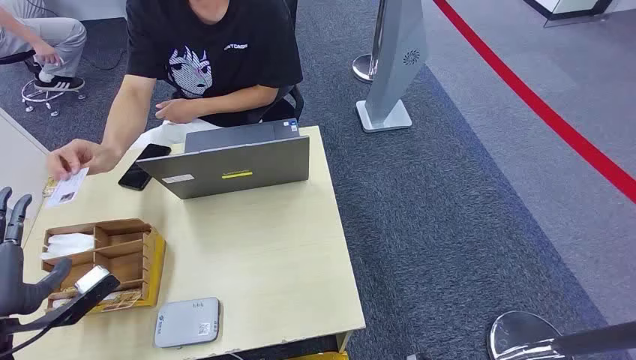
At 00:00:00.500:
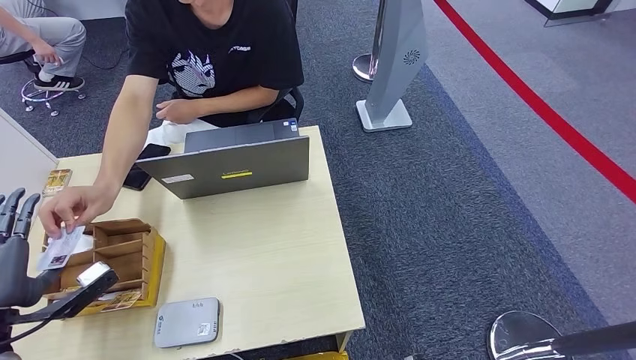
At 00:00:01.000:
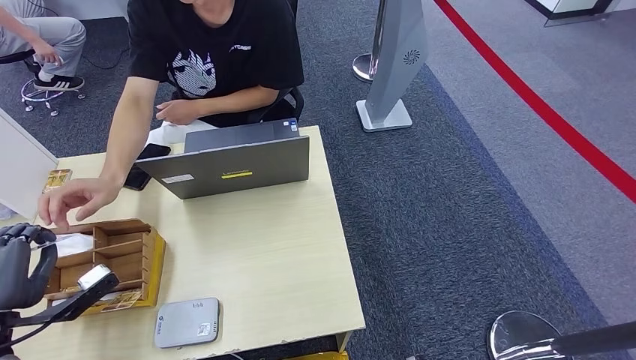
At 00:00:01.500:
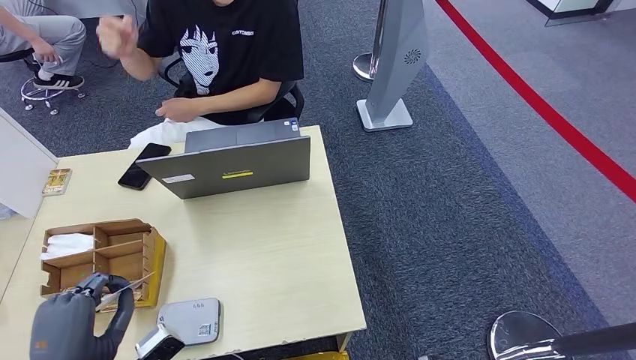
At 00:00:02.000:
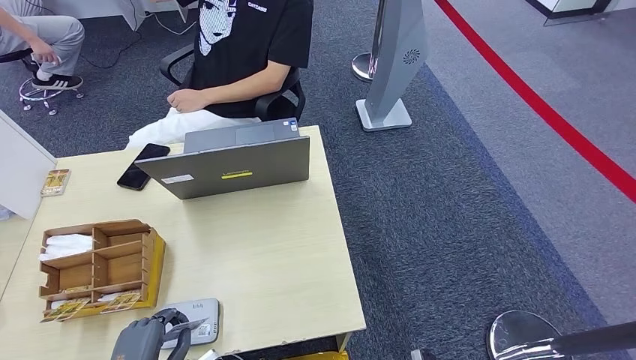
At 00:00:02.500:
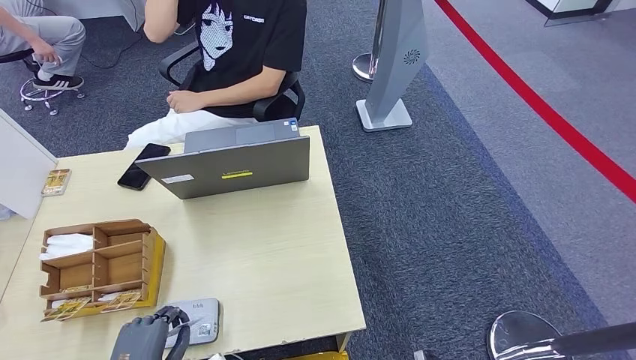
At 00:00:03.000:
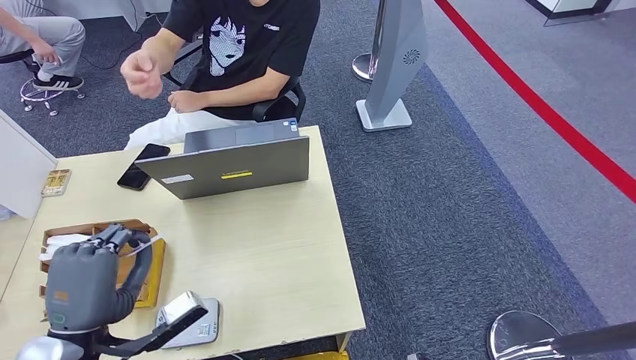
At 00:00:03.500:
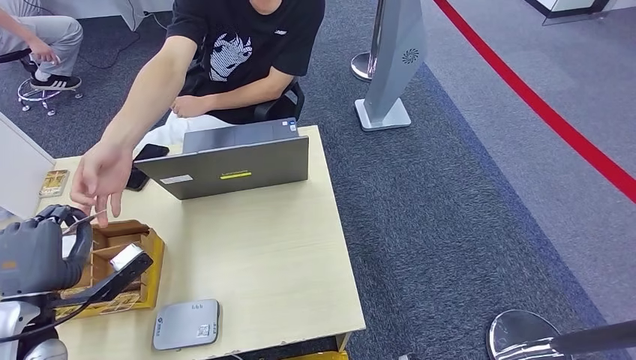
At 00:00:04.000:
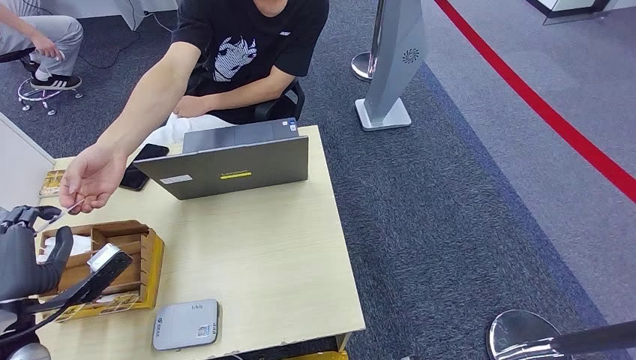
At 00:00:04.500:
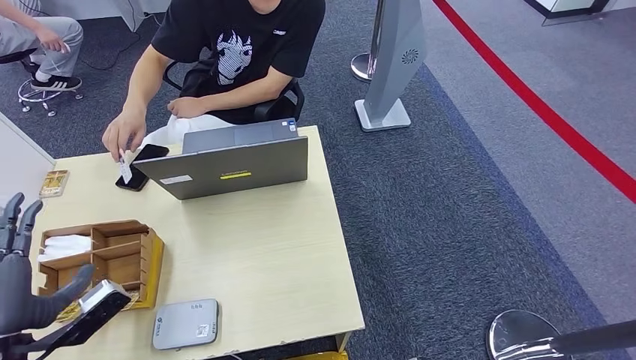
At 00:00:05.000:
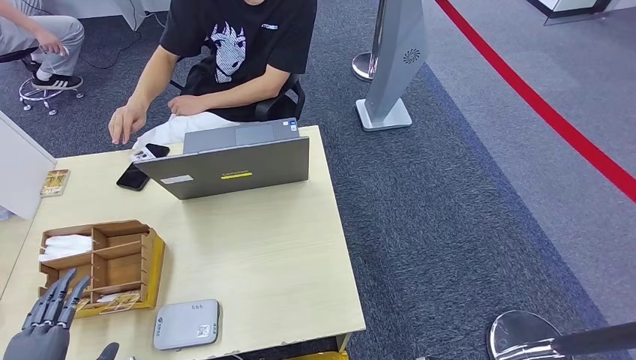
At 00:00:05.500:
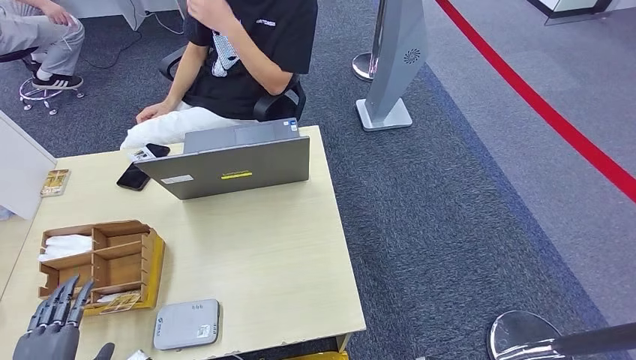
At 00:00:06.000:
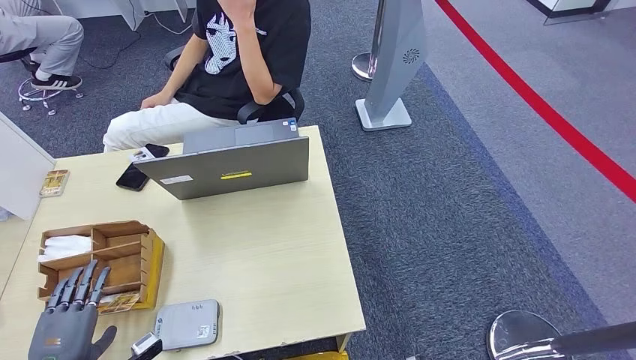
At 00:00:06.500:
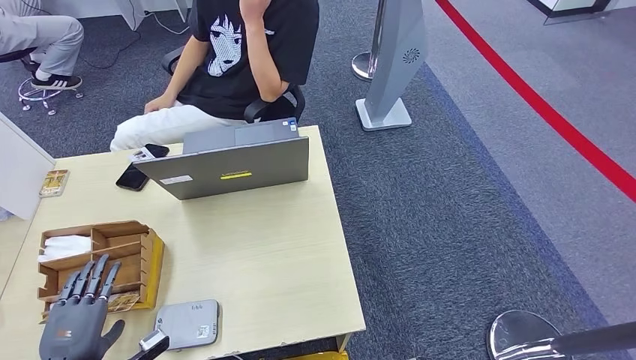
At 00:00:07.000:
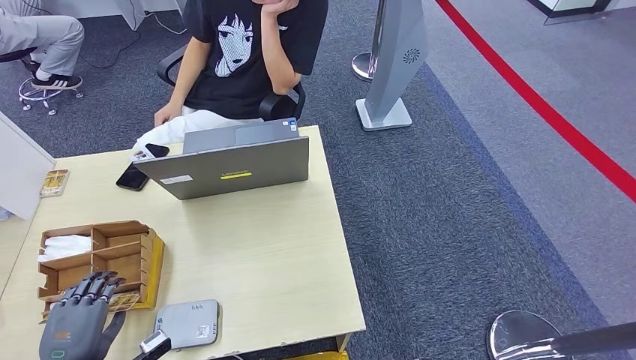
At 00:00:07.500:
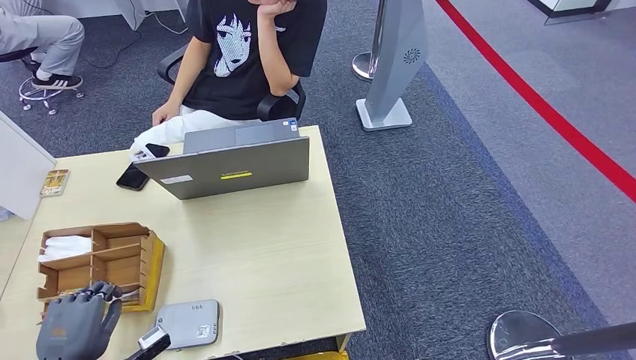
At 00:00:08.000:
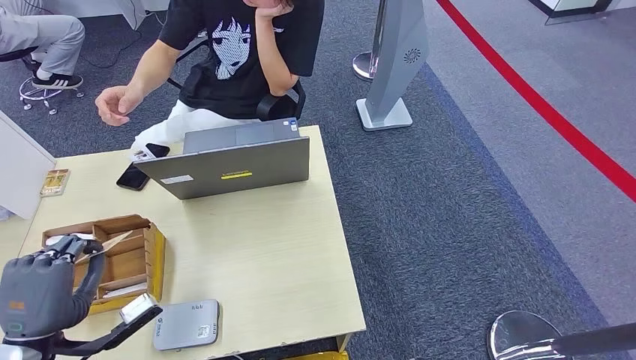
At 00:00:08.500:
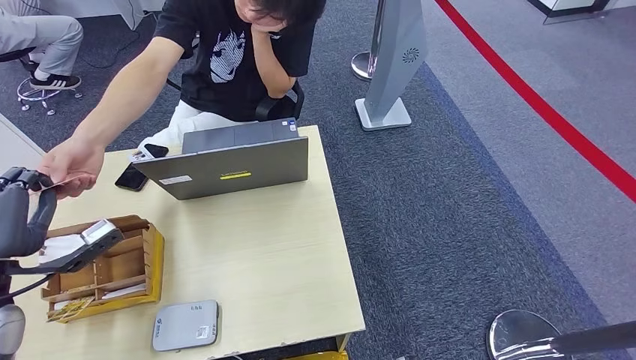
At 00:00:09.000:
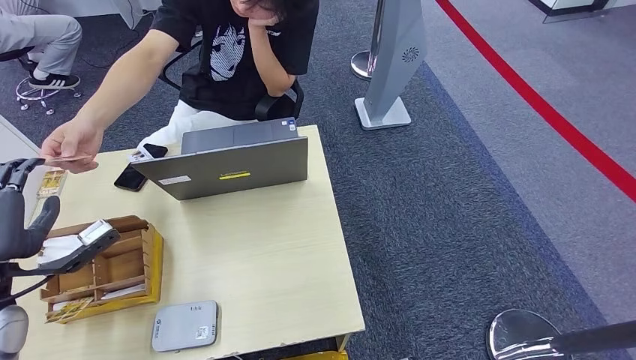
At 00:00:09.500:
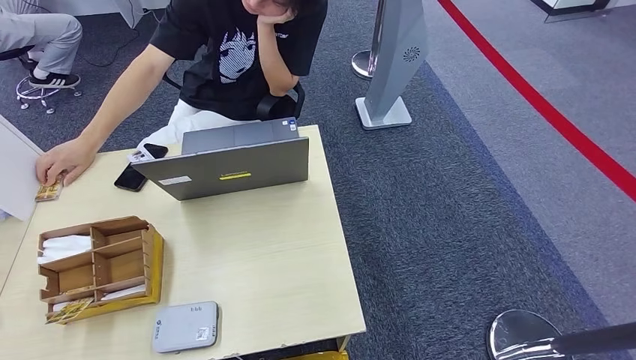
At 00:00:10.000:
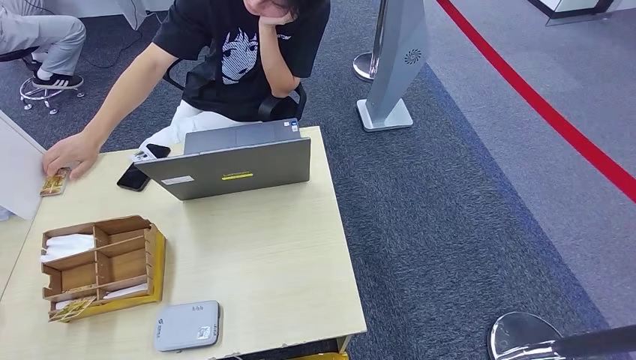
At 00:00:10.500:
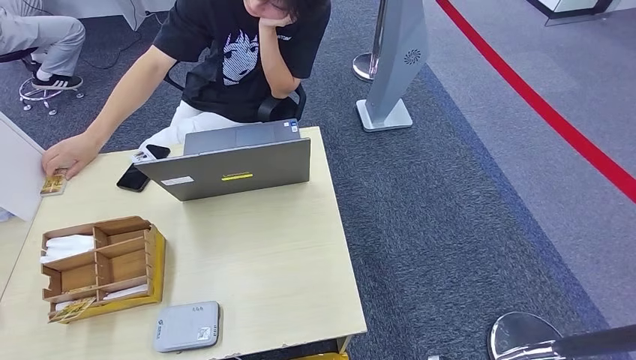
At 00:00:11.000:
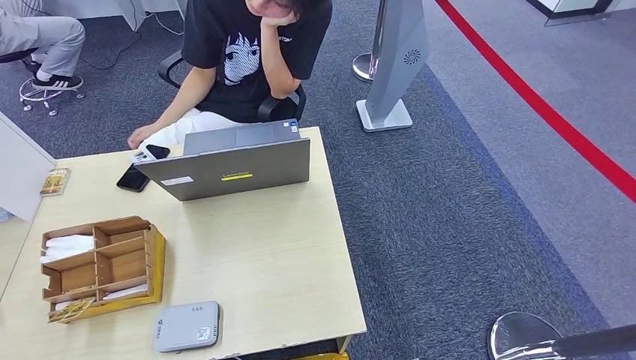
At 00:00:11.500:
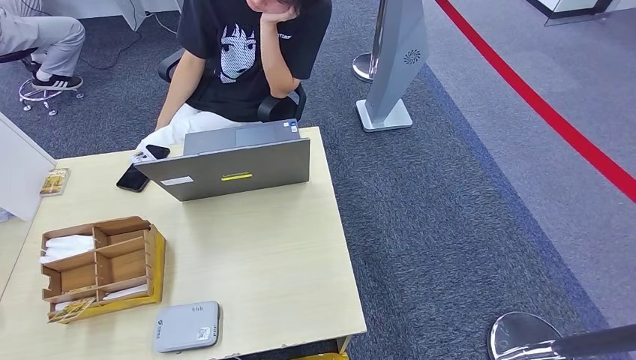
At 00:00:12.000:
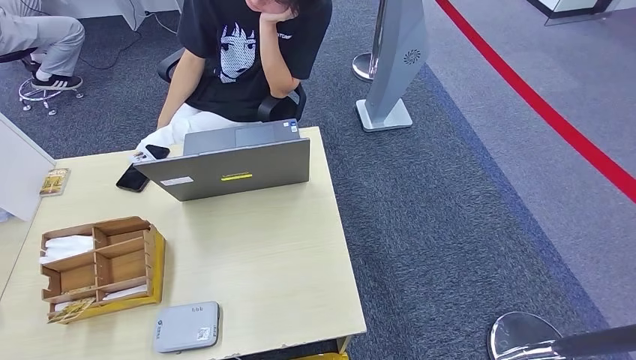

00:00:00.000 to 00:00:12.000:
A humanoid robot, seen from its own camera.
Step, 00:00:00.000 to 00:00:01.000: Take the ID card from the person's hand.
Step, 00:00:01.500 to 00:00:03.500: Place the ID card on the card reader.
Step, 00:00:04.000 to 00:00:05.500: Hand the ID card to the person.
Step, 00:00:06.000 to 00:00:08.000: Pick up the room key from the key card box.
Step, 00:00:08.500 to 00:00:12.000: Hand the room key to the person.
00:00:02.000 to 00:00:04.000: The left hand heads forward, to the left and upward, covering roughly 20 cm.
00:00:04.000 to 00:00:06.000: The left hand travels downward and backward by about 15 cm.
00:00:06.000 to 00:00:08.000: The left hand shifts some 10 cm upward.
00:00:08.000 to 00:00:10.000: The left hand heads backward and to the left, covering approximately 15 cm.
00:00:10.000 to 00:00:12.000: The left hand shifts roughly 25 cm downward and to the right, while the right hand goes roughly 10 cm downward and to the right.
